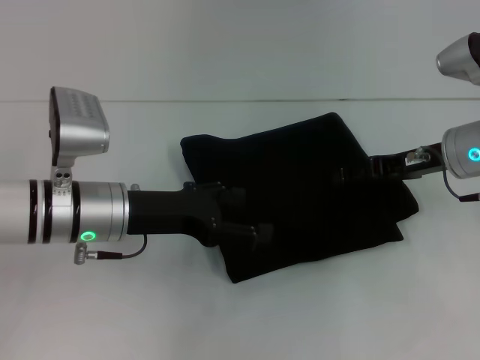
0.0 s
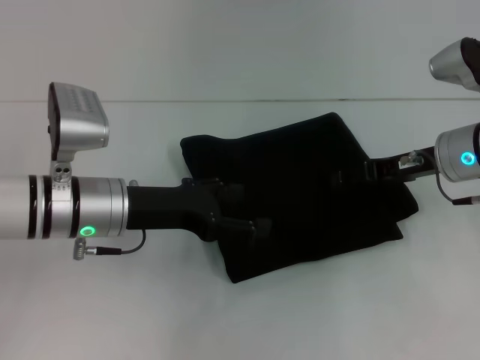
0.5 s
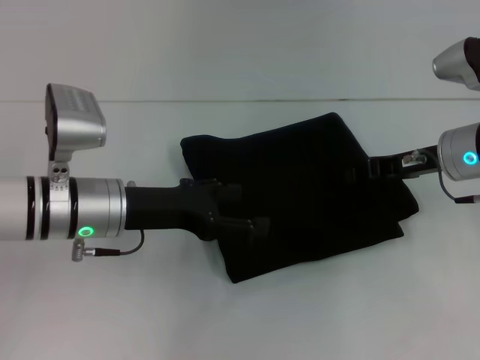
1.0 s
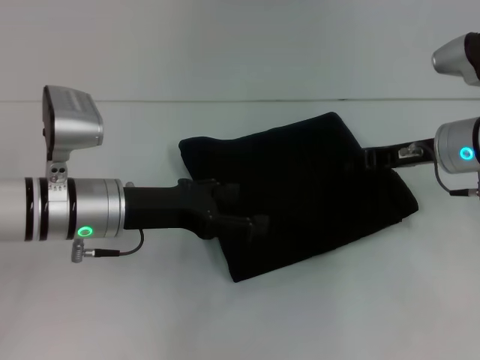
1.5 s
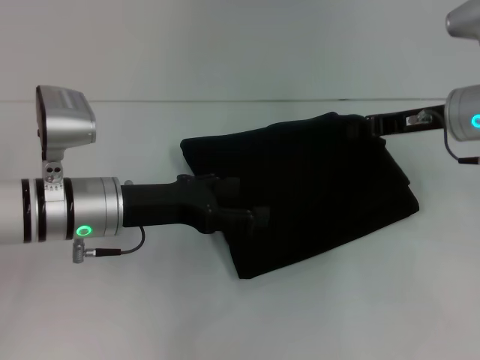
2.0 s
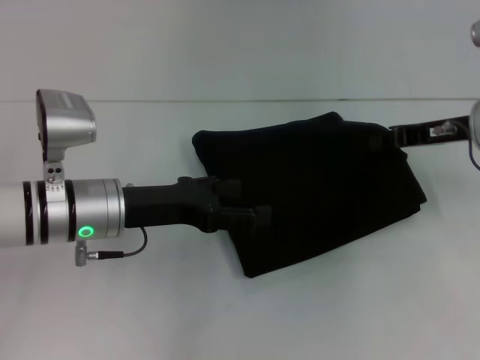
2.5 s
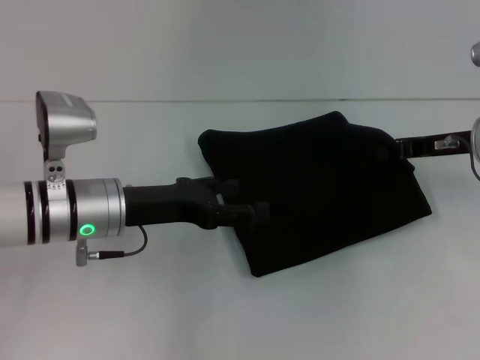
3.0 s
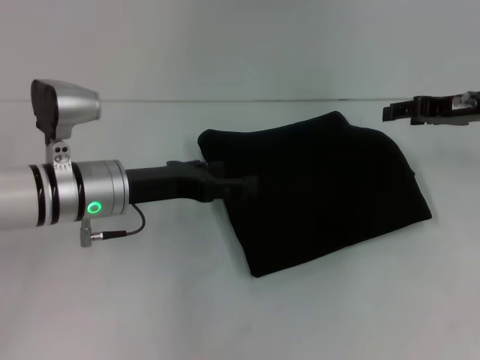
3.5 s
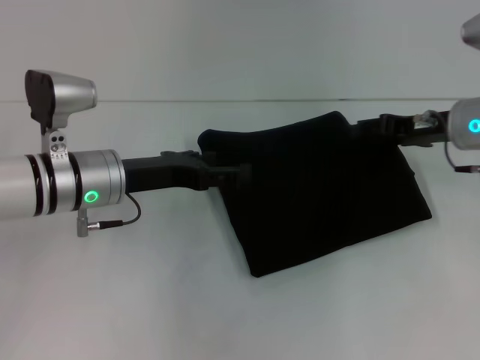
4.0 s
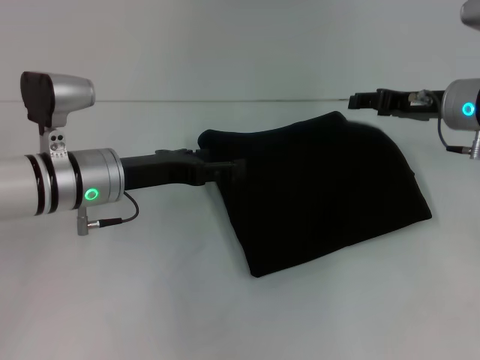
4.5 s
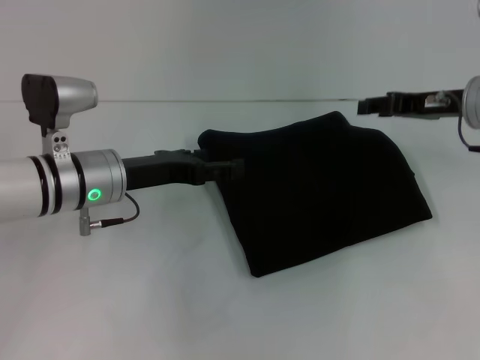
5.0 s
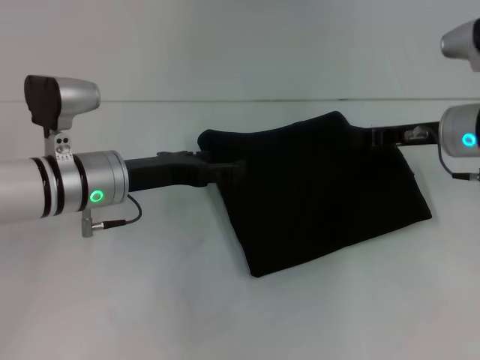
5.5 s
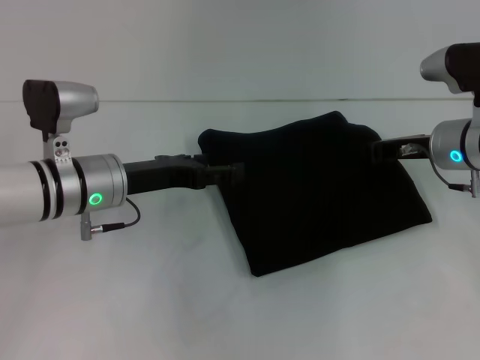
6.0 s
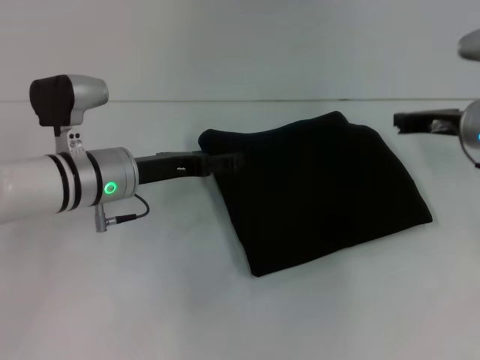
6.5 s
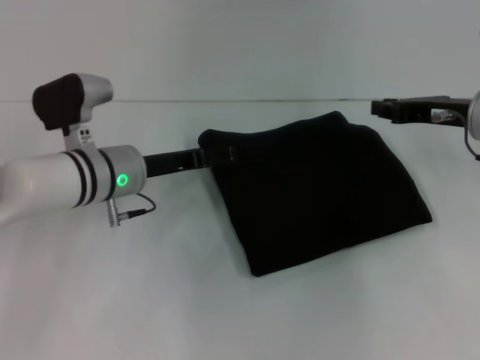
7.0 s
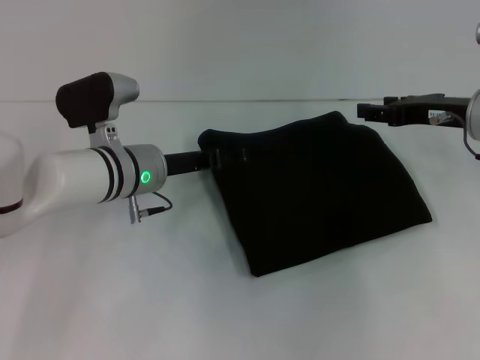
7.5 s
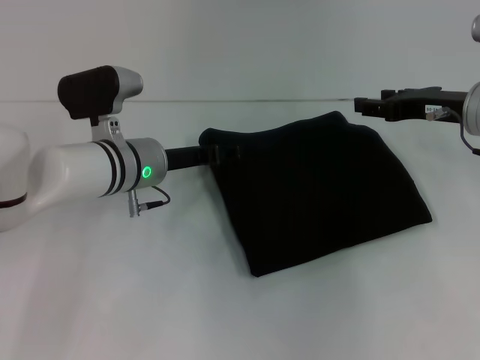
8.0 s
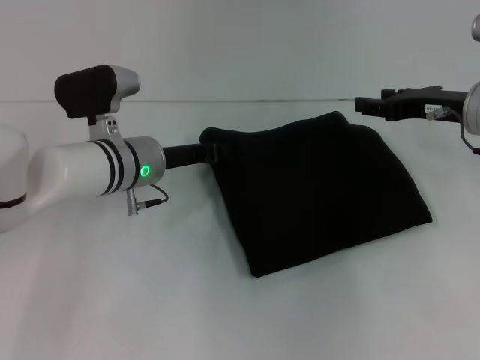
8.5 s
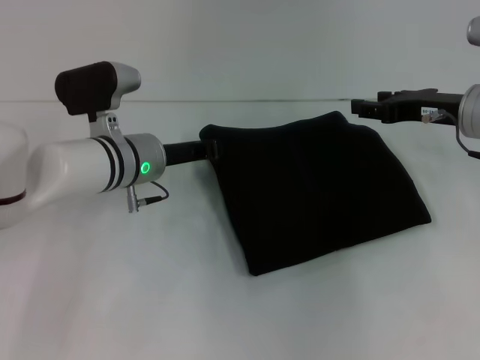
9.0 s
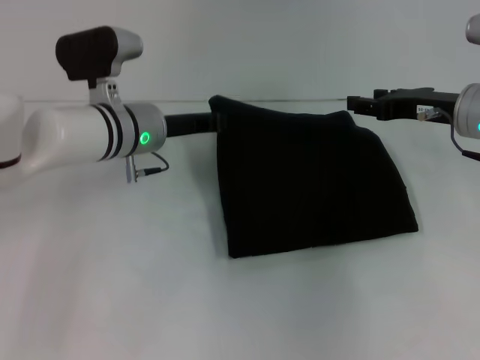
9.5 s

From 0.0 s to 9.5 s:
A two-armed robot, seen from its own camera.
Step, from 0.0 s to 4.5 s: Fold the clothes with your left hand.
From 0.0 s to 2.0 s: The right gripper closes its fingers.
From 2.0 s to 4.0 s: The right gripper opens its fingers.
From 4.0 s to 5.5 s: The right gripper closes.
From 5.5 s to 7.5 s: The left gripper ends up approximately 5 cm from where it was.
From 7.5 s to 9.5 s: The left gripper closes its fingers.

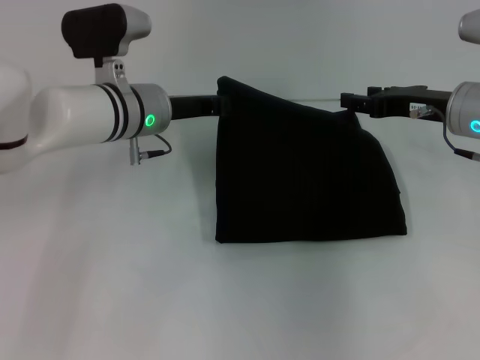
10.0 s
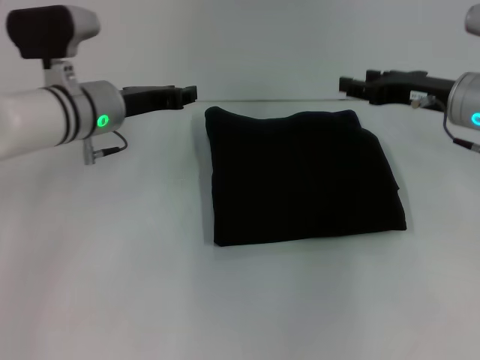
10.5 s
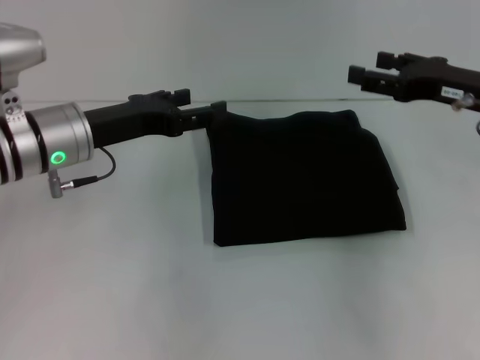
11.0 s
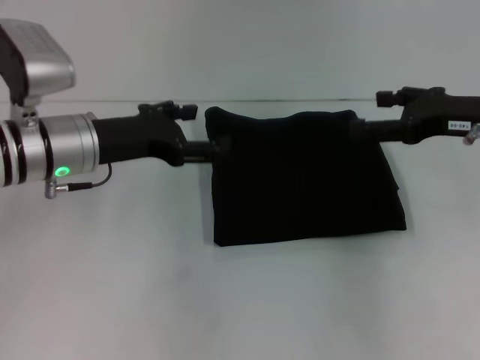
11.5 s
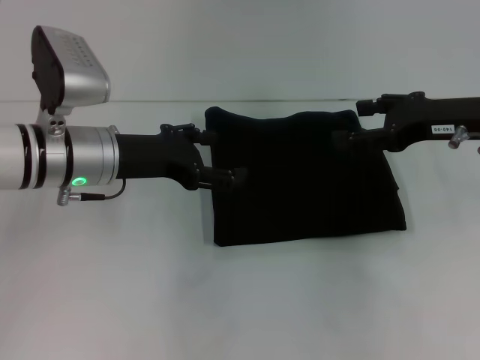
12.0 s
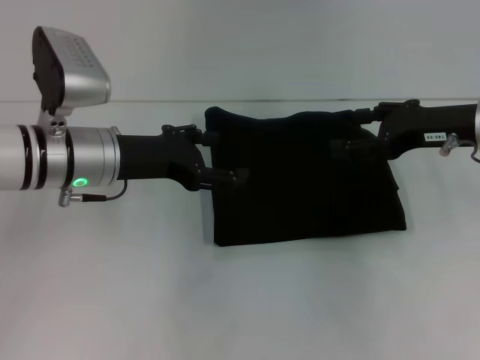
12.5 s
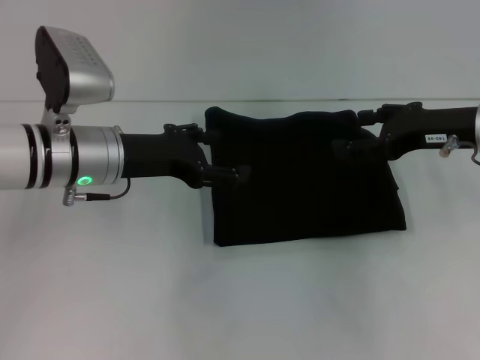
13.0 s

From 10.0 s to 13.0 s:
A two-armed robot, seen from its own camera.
From 10.0 s to 11.5 s: The left gripper goes some 10 cm backward and to the left, and opens, while the right gripper shifts by roughly 5 cm.
From 11.5 s to 13.0 s: There are only small adjustments of the grippers.

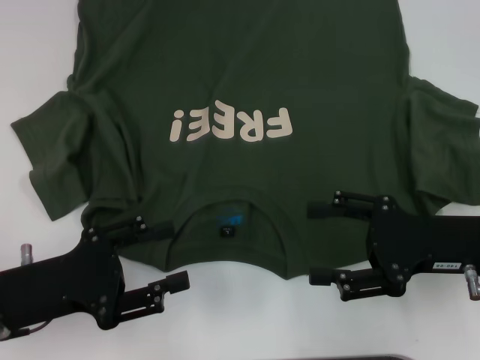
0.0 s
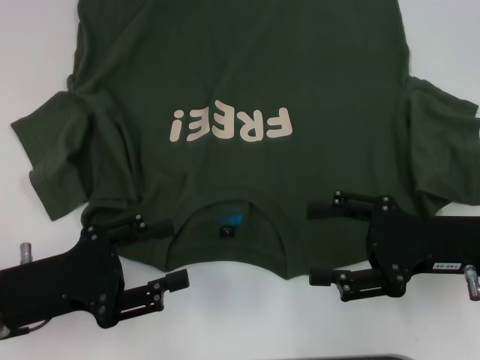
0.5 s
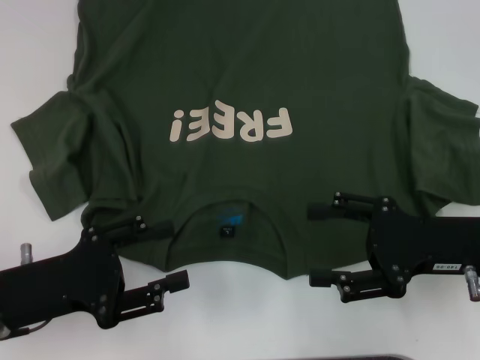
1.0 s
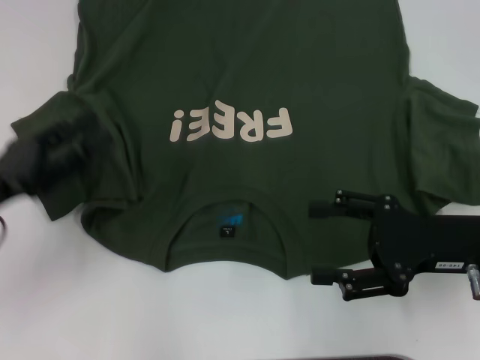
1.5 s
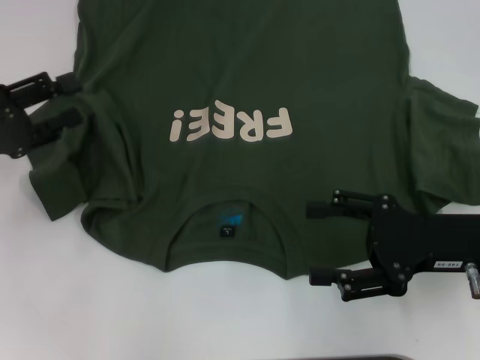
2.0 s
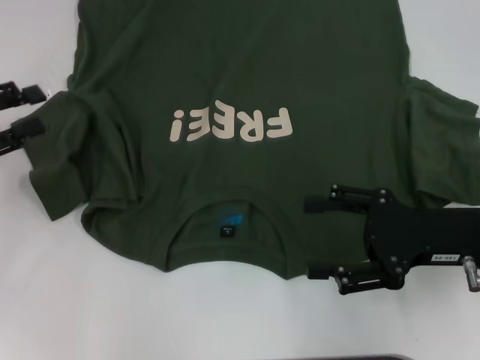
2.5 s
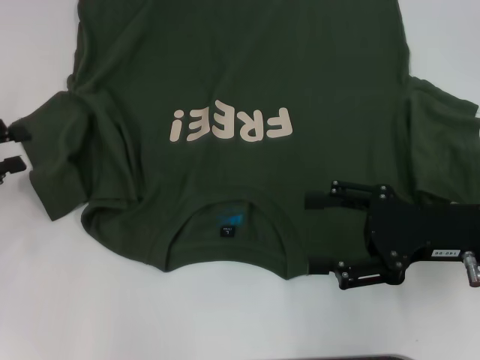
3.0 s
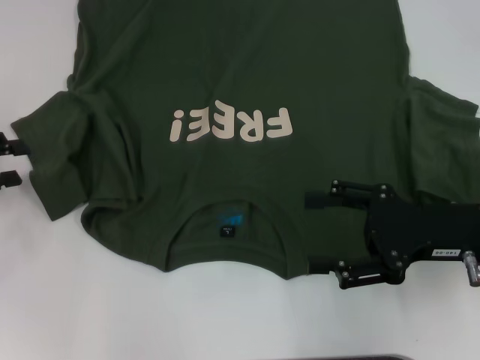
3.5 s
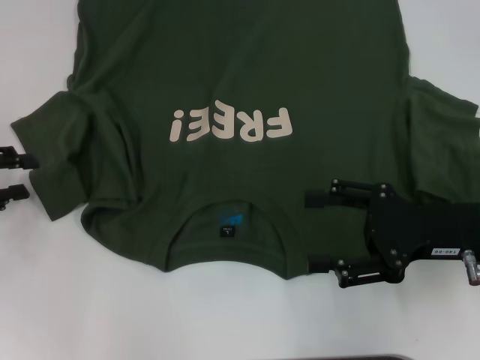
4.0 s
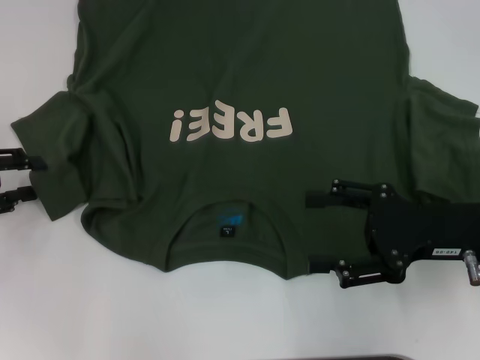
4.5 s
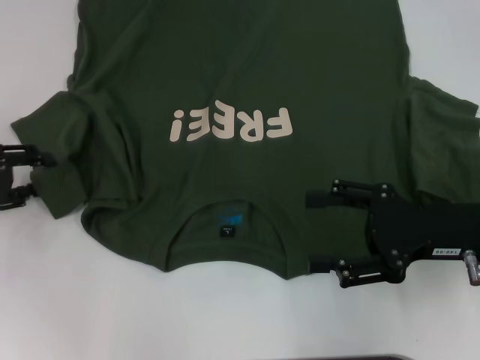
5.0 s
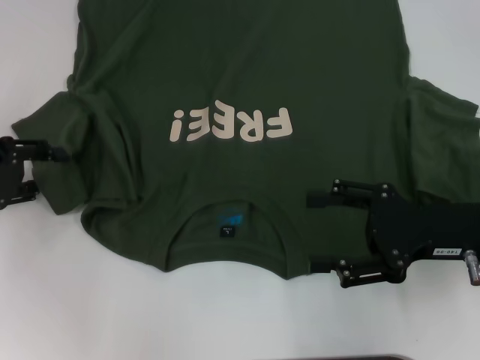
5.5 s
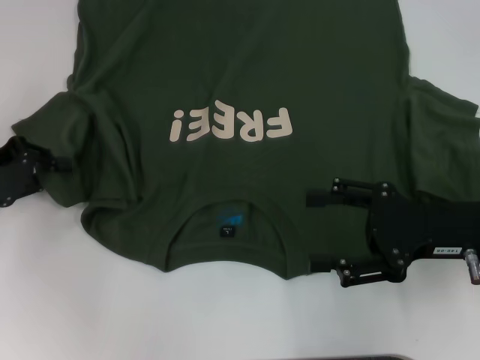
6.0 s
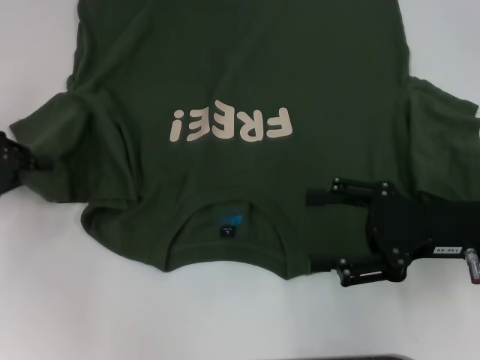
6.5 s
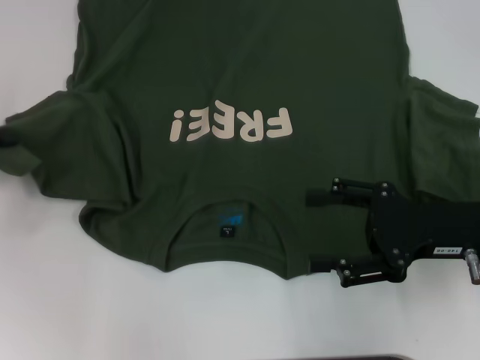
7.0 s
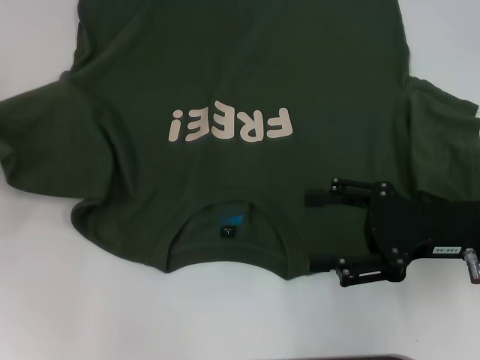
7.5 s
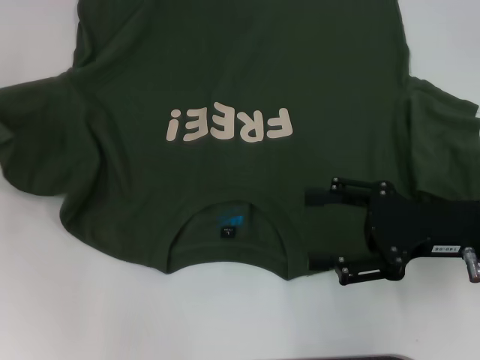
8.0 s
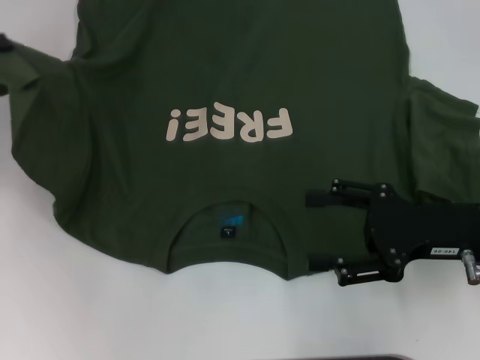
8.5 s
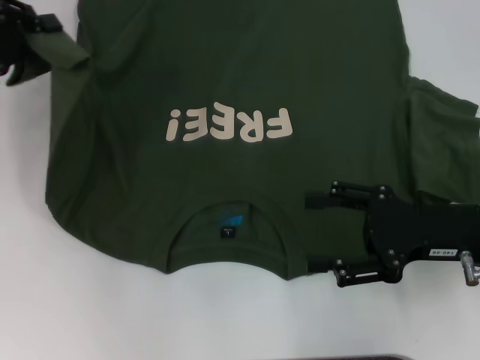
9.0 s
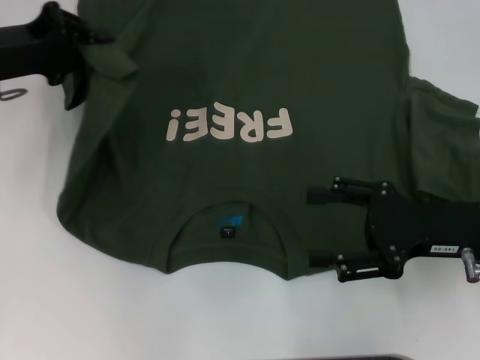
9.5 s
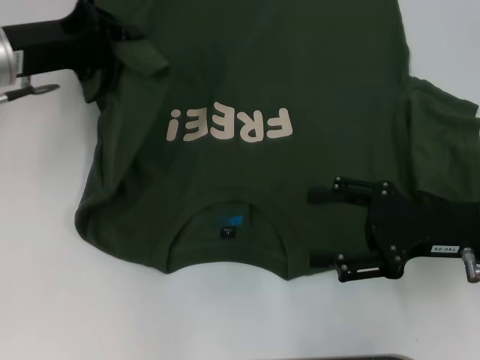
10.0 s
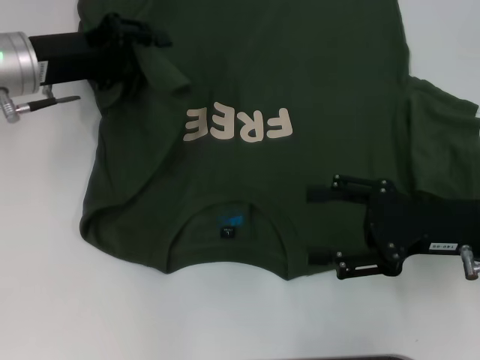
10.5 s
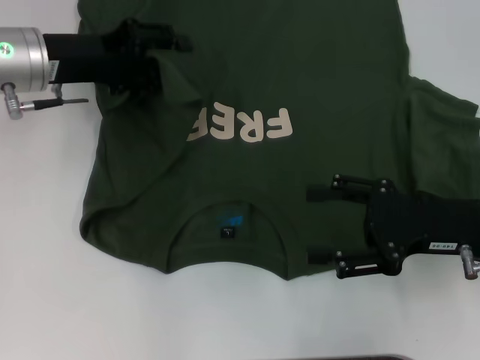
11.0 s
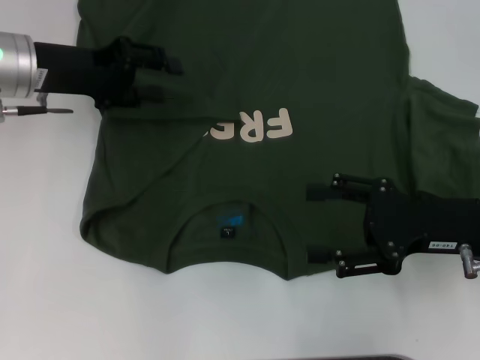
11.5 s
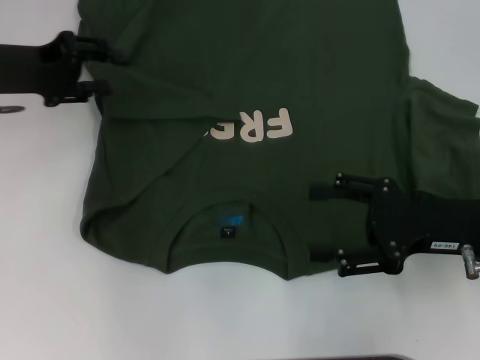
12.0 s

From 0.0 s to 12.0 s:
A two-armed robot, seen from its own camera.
From 0.0 s to 2.0 s: The left gripper moves forward, to the left and upward, roughly 10 cm.
From 2.0 s to 4.0 s: The left gripper moves approximately 5 cm.
From 4.0 s to 6.0 s: There are only small adjustments of the grippers.
From 6.0 s to 8.0 s: The left gripper is displaced to the left and upward by some 10 cm, and closes up.
From 8.0 s to 10.0 s: The left gripper heads to the right and forward, covering approximately 15 cm.
From 10.0 s to 12.0 s: The left gripper opens.

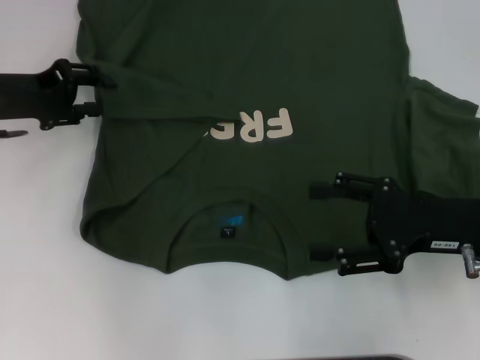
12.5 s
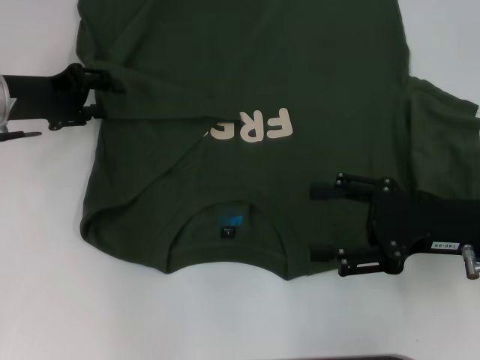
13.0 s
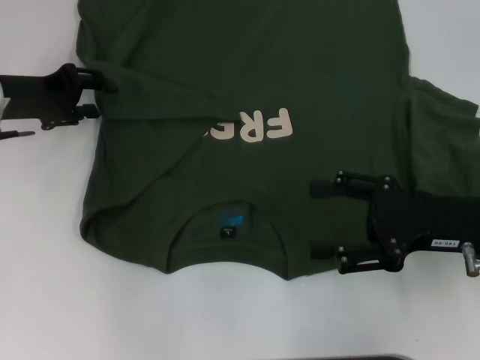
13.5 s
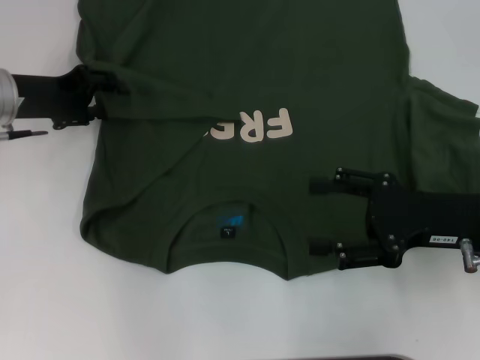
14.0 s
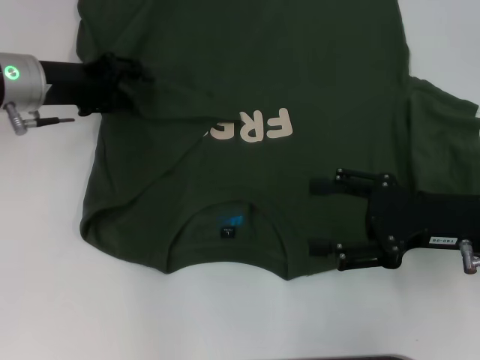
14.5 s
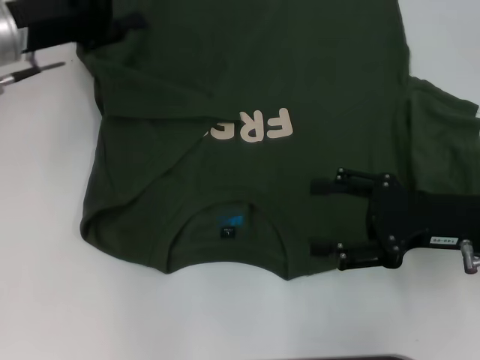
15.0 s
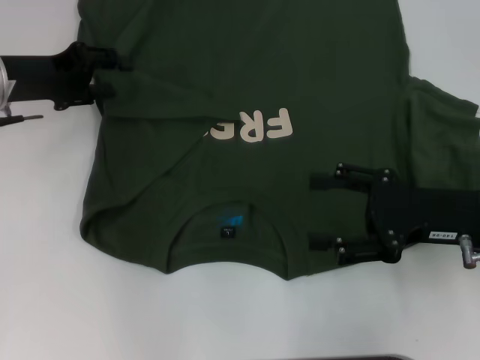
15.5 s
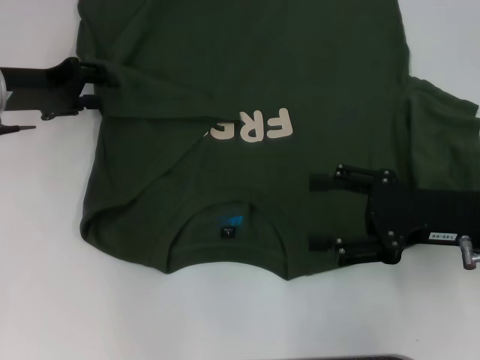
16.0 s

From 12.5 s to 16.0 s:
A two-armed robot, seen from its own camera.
From 12.5 s to 14.5 s: The left gripper shifts by some 5 cm.
